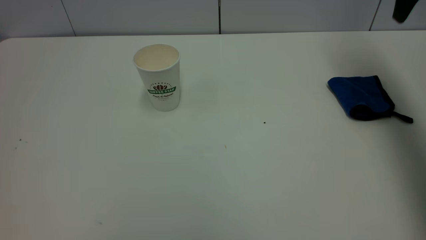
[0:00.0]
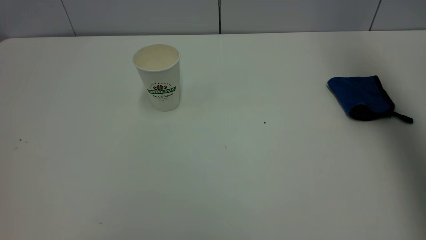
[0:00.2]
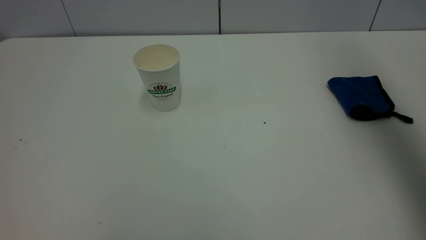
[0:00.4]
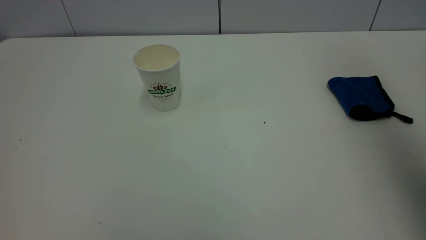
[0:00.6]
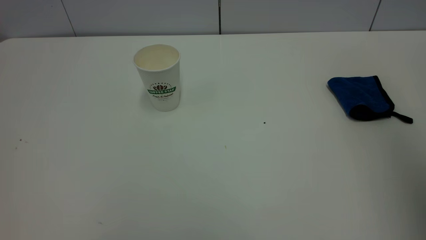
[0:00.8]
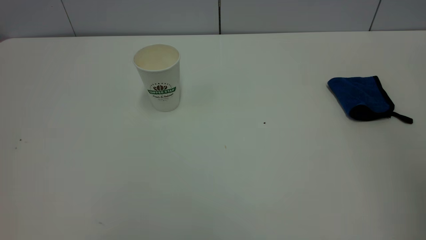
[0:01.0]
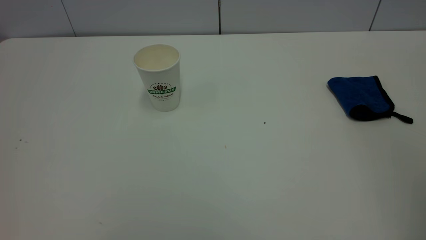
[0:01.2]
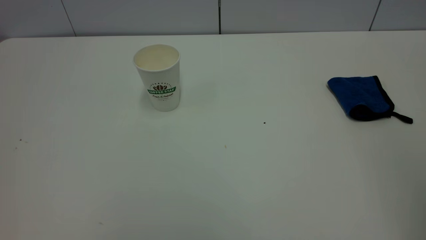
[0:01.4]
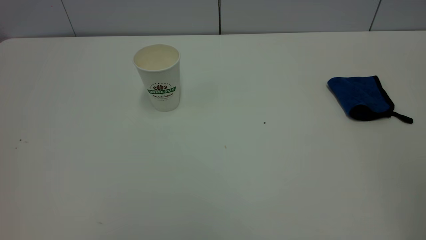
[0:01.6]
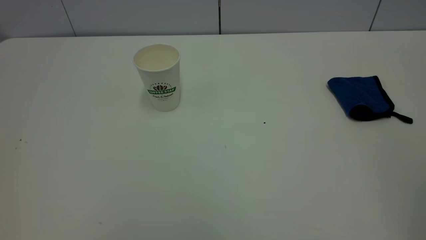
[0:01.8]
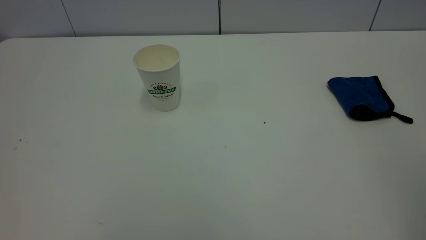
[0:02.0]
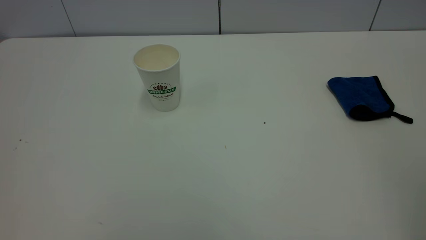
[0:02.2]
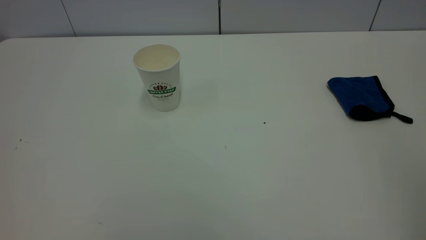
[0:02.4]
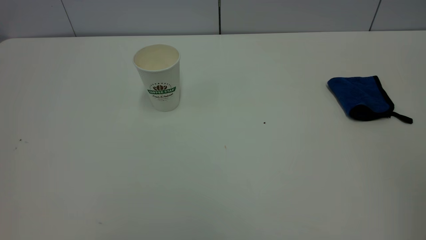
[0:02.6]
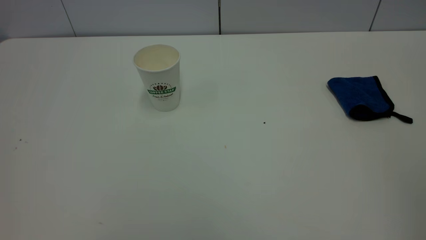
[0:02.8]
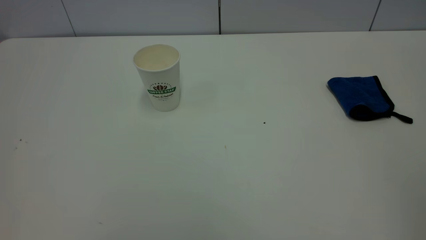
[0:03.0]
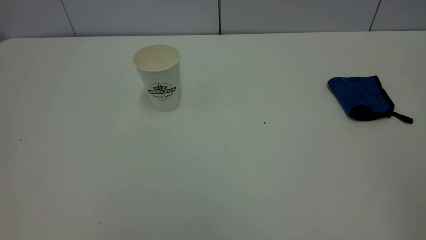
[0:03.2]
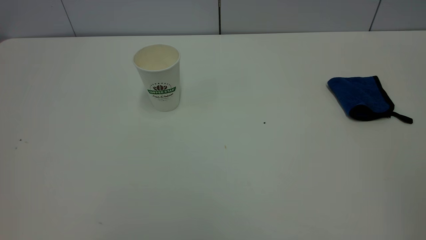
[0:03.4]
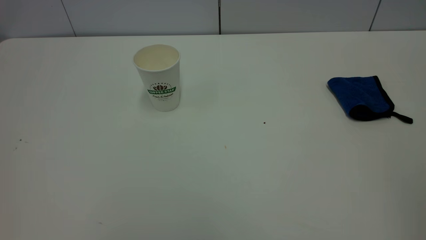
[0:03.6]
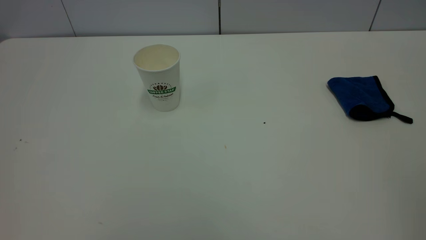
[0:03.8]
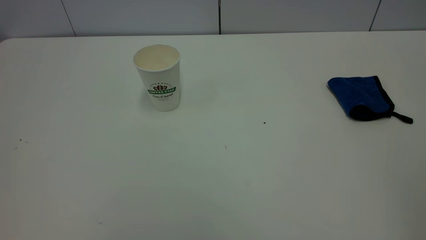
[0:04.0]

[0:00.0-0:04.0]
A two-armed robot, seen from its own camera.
Task of the whole recording: the left gripper pick up the fallen cup and place it upright, the right gripper grasp the blue rag and wipe the tea stain on the table, the right gripper put the blue rag back in its original position.
0:00.0 to 0:01.4: The right gripper heads backward, covering some 40 cm.
